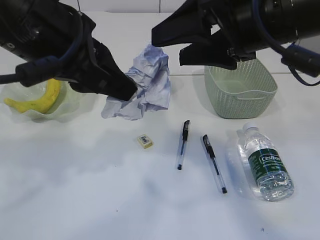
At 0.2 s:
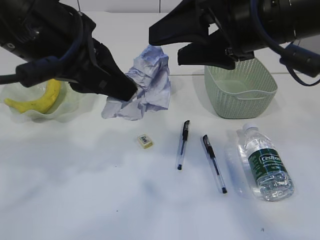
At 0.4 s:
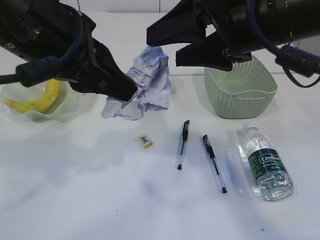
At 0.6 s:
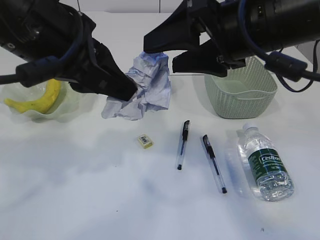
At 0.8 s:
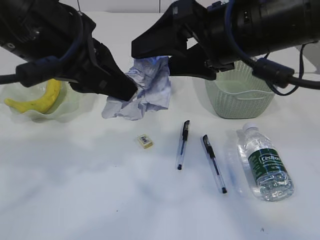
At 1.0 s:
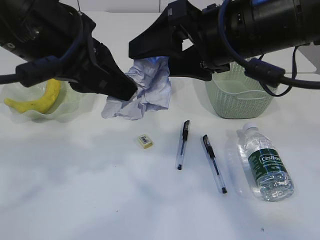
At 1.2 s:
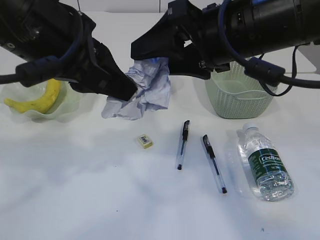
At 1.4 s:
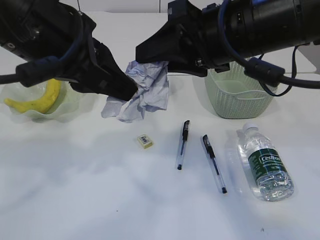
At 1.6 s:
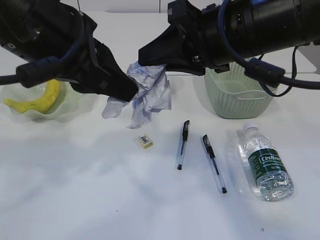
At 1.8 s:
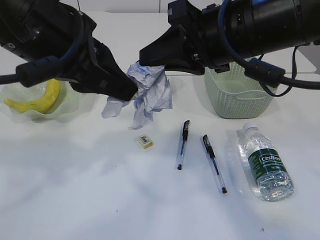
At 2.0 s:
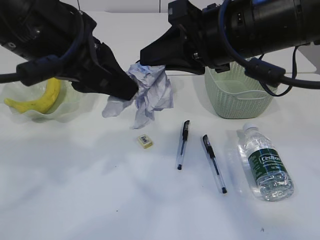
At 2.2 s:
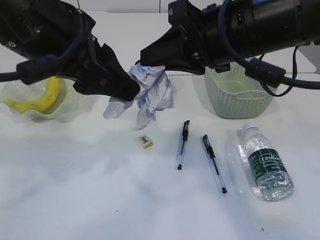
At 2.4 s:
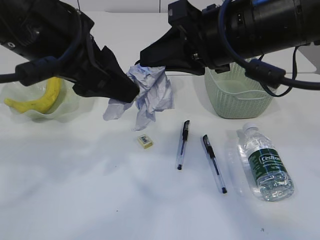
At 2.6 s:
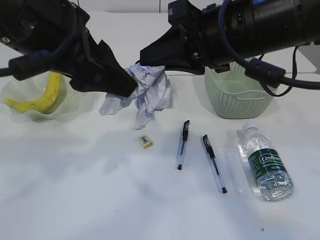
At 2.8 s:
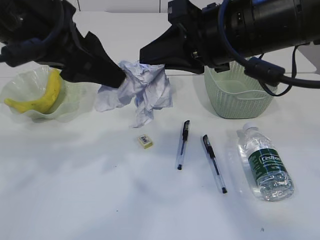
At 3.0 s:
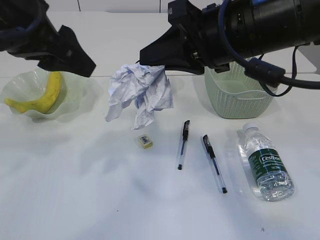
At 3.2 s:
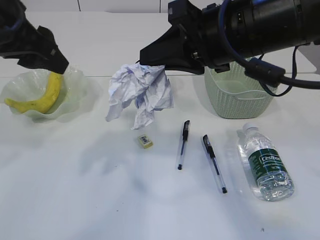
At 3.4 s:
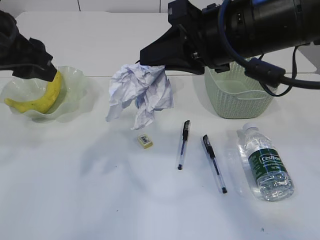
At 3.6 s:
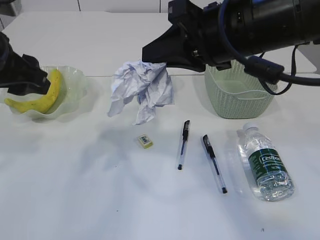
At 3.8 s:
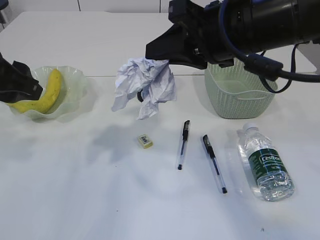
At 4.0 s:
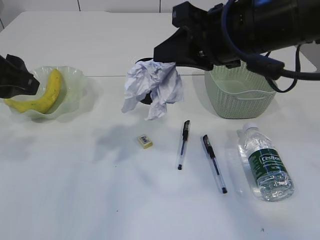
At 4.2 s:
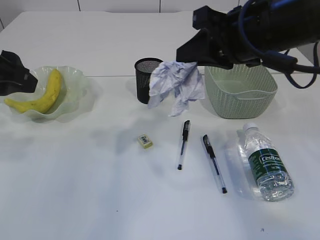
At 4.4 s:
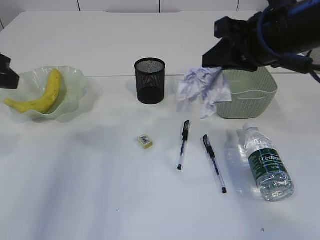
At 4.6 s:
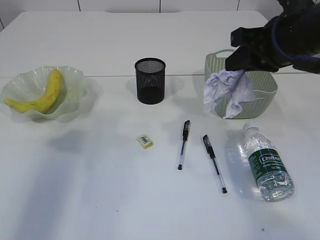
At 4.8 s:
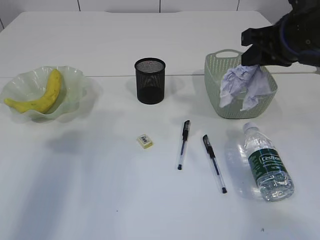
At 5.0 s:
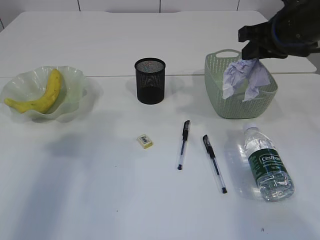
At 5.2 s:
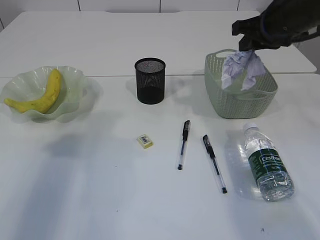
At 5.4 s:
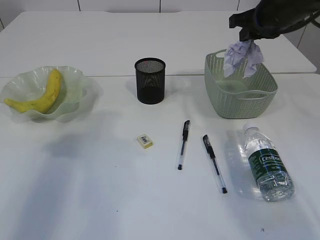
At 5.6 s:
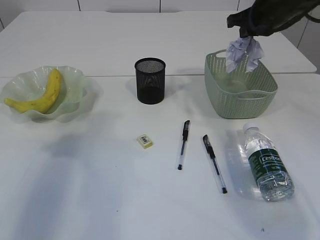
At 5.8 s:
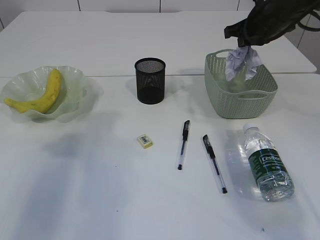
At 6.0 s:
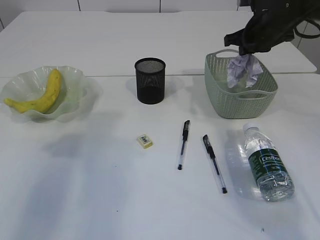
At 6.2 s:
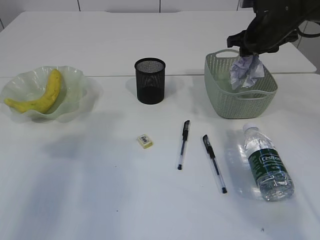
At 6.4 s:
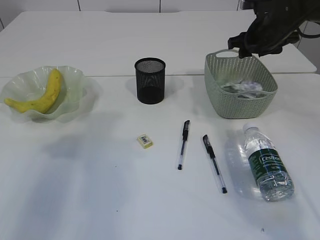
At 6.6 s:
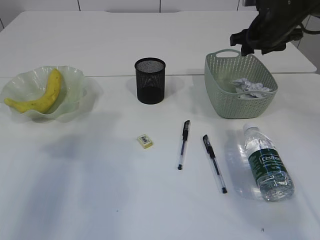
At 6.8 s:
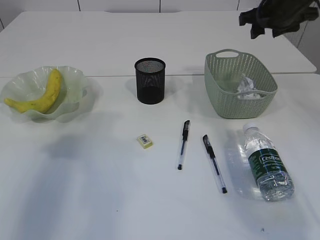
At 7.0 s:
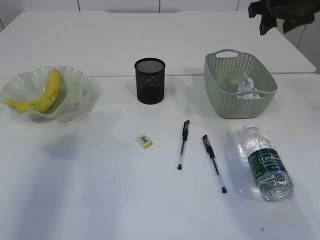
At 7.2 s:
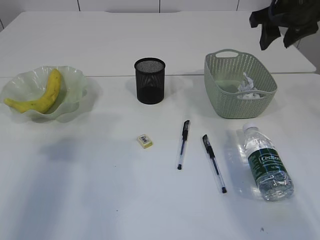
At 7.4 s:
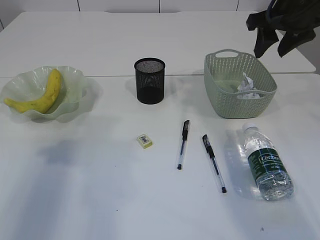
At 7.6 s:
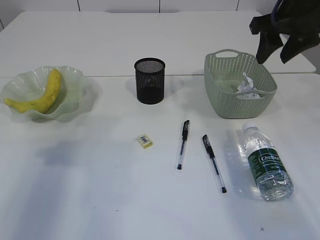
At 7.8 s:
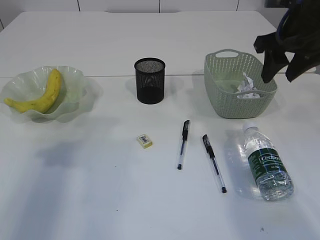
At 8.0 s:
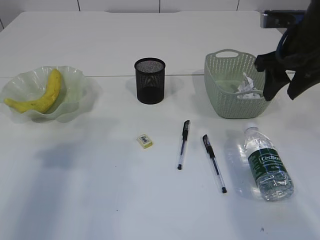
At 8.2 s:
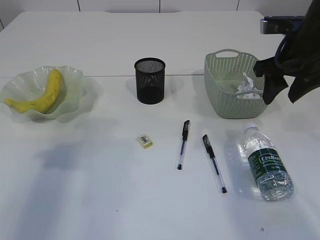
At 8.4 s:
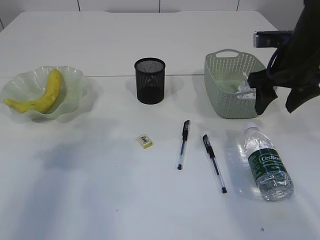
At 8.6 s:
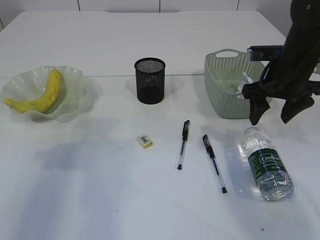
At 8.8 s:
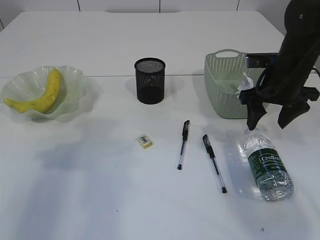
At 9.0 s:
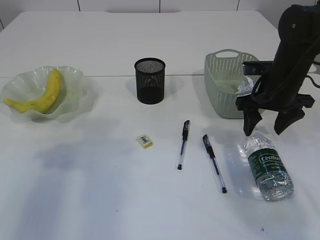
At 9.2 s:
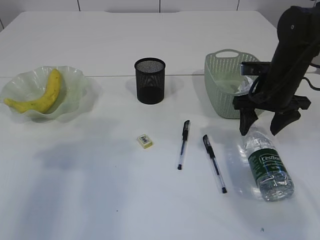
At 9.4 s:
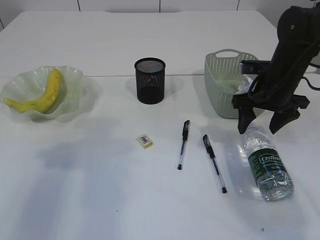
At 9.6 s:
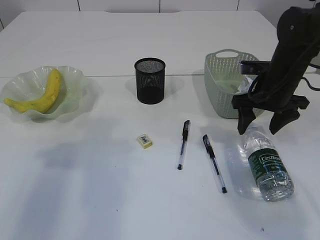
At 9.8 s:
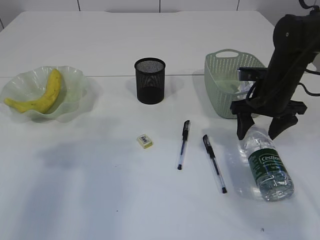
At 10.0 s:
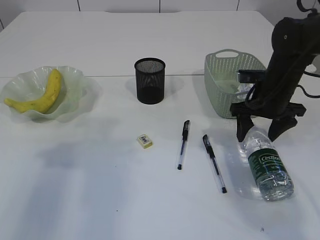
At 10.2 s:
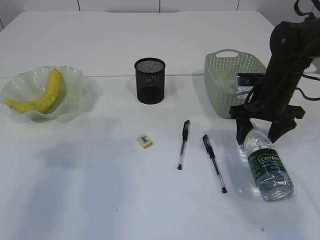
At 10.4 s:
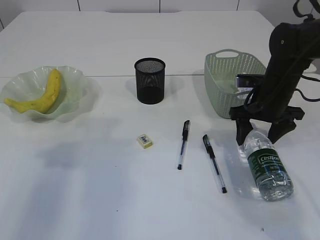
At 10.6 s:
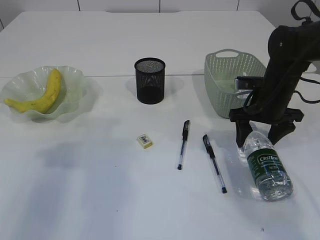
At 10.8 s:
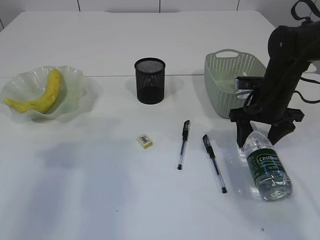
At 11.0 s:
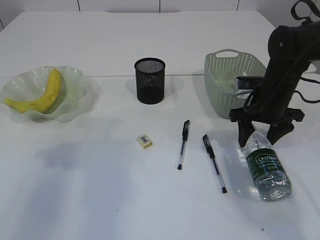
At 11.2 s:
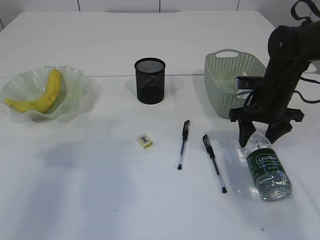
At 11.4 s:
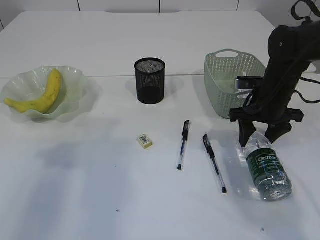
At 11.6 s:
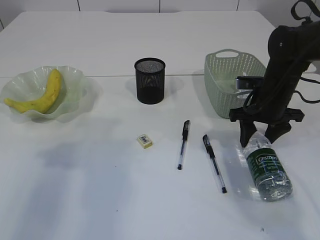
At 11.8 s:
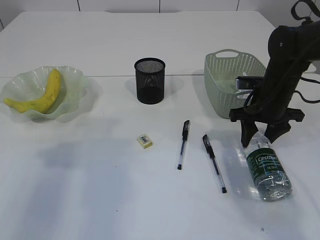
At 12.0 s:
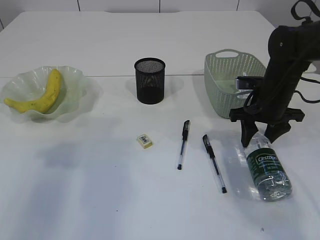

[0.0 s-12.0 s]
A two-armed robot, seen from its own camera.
Step, 0.0 to 2.8 s: Hand over the waste paper.
Step, 3.0 to 6.6 s: Place the waste paper in the basket.
0.0 to 1.6 s: The right gripper closes its fingers.
1.6 to 3.0 s: The left gripper is displaced to the left by about 5 cm, and opens its fingers.
3.0 to 4.4 s: The left gripper travels to the left by about 10 cm, while the right gripper travels to the right by about 5 cm.
4.4 to 6.0 s: The right gripper is displaced forward by roughly 15 cm.
6.0 to 7.6 s: The right gripper goes some 10 cm backward and upward, and opens its fingers.
7.6 to 9.0 s: The right gripper moves downward, roughly 15 cm.
9.0 to 10.4 s: The grippers move only a little.
10.4 to 12.0 s: The right gripper closes up.

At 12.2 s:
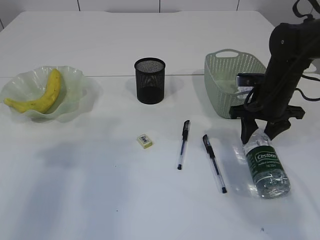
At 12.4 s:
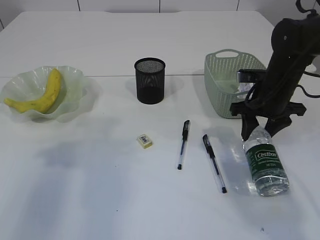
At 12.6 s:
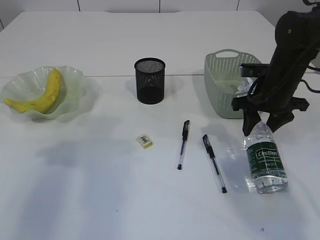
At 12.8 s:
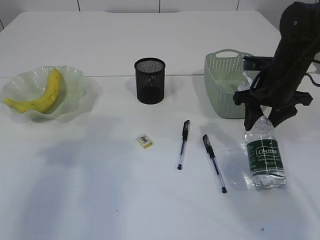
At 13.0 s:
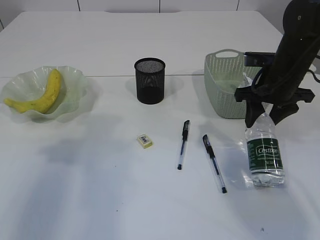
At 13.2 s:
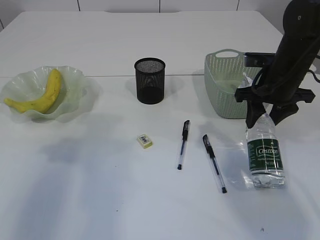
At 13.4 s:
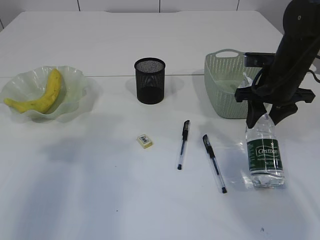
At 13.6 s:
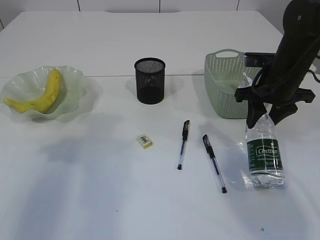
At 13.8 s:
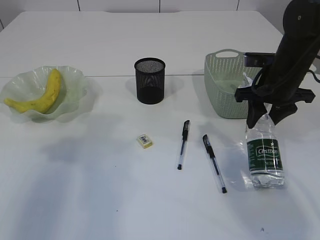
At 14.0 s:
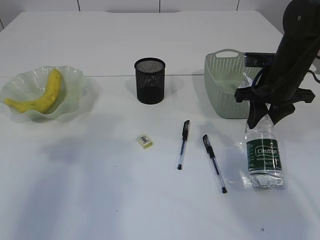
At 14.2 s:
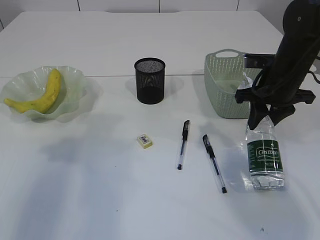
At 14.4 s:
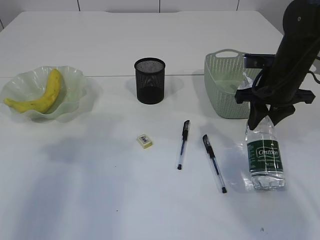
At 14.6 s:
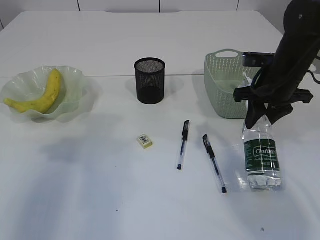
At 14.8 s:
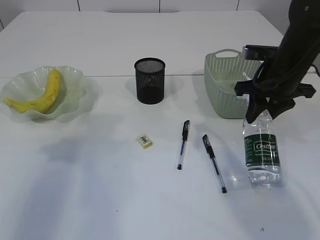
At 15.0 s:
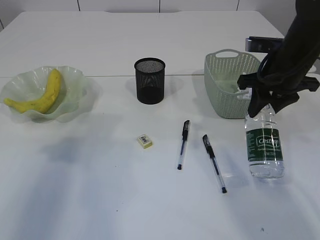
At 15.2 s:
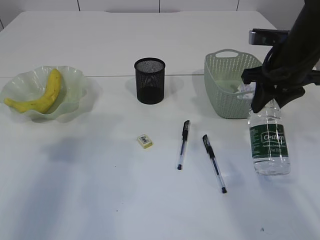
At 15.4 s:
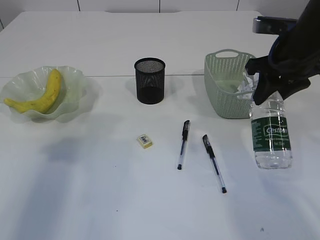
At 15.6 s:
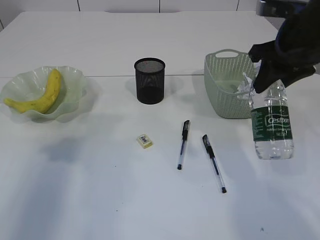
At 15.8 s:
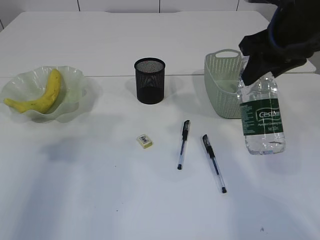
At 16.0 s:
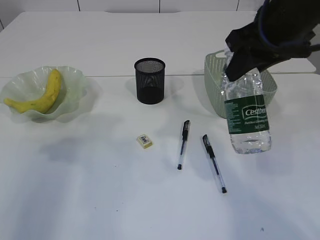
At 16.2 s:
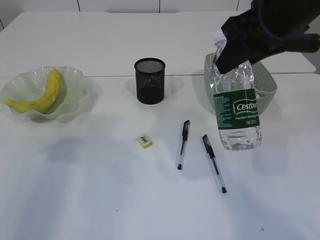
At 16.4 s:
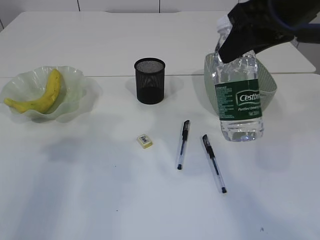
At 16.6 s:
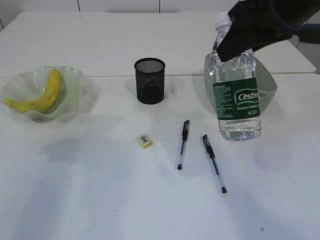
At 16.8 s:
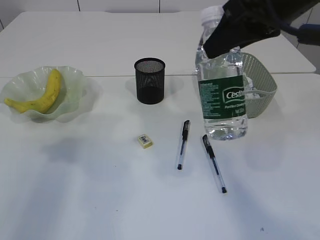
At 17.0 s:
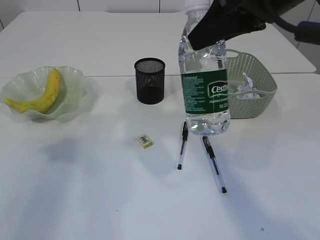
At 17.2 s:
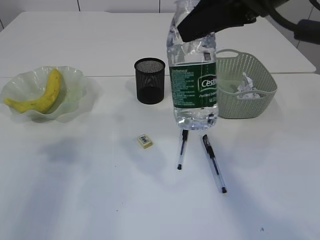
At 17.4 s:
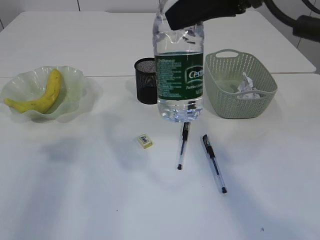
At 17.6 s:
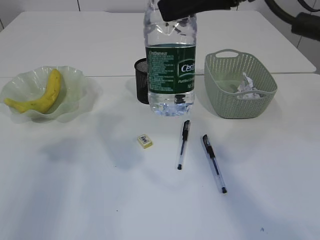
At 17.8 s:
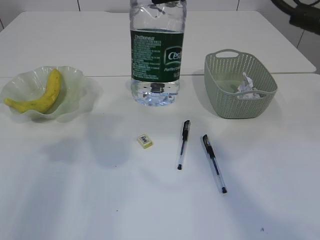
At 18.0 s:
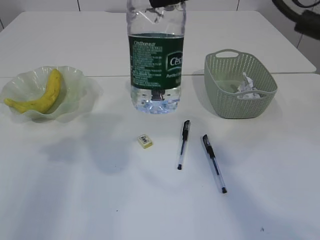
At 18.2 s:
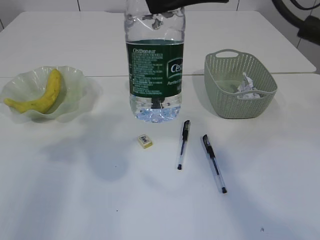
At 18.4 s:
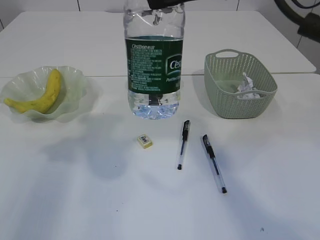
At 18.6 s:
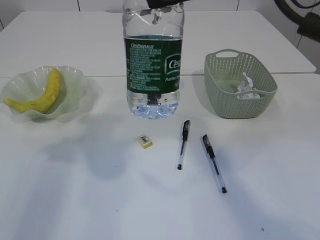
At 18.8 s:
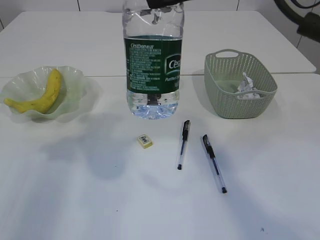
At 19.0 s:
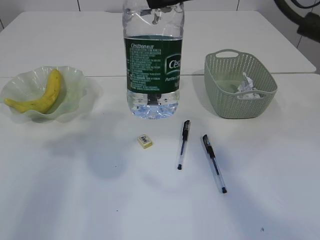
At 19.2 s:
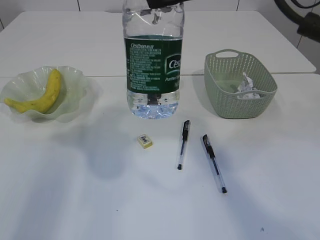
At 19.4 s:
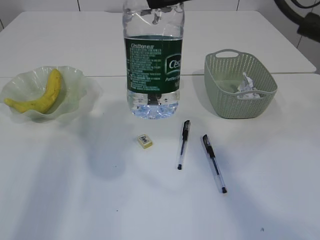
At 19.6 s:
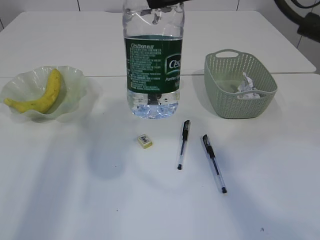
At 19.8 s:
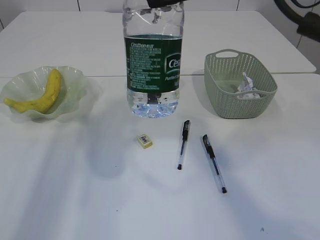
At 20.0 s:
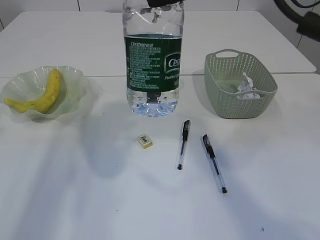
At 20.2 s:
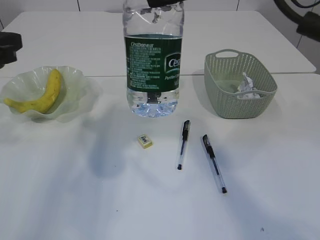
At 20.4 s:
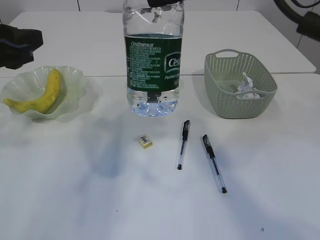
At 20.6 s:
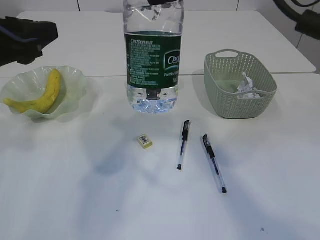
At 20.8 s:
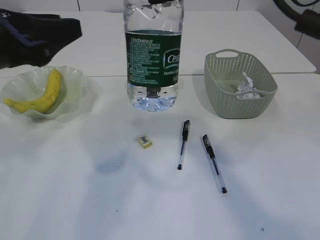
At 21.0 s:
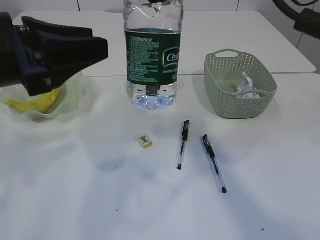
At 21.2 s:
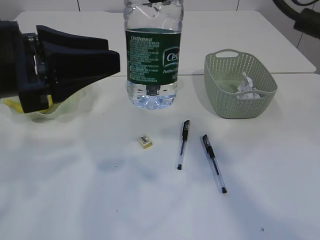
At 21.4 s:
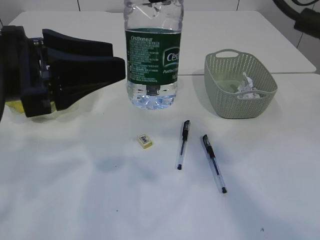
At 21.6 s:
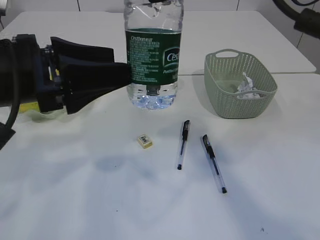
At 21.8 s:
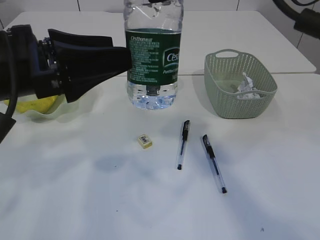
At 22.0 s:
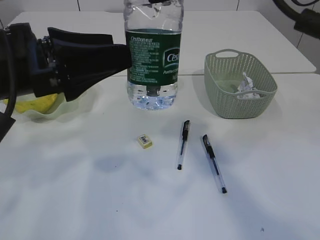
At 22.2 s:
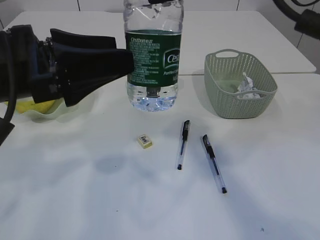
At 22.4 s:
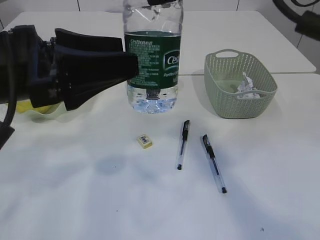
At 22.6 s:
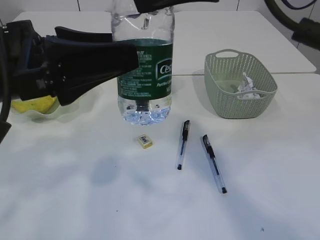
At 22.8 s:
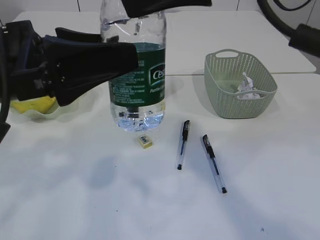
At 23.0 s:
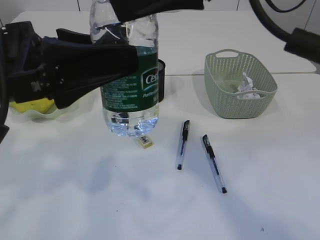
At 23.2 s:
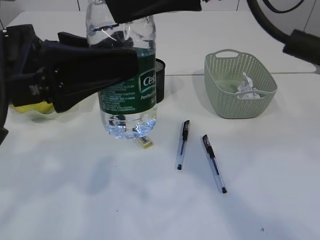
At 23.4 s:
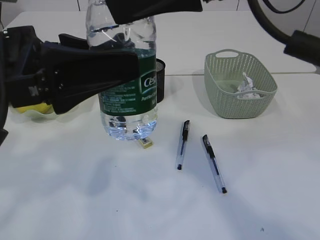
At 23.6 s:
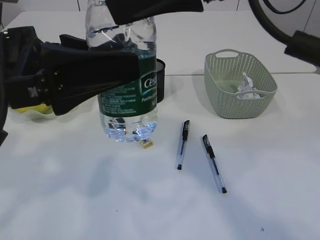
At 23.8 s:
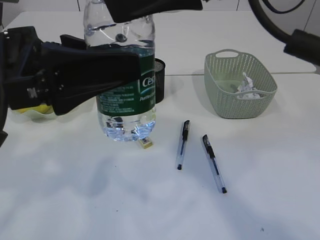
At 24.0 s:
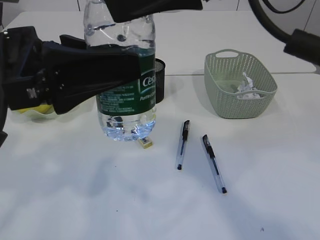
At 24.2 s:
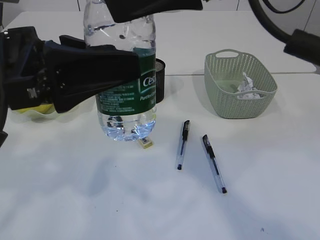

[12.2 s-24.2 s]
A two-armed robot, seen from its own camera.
Step, 12.2 to 14.8 s: Pick up the bottle with the right arm.
12.2 to 13.8 s: The grippers move only a little.
13.8 to 15.2 s: The right gripper goes about 5 cm upward.
15.2 to 16.6 s: The right gripper heads upward, backward and to the left, covering approximately 15 cm.
16.6 to 18.2 s: The right gripper moves roughly 5 cm.
19.8 to 21.2 s: The left gripper goes about 15 cm to the right and backward.
21.2 to 22.6 s: The left gripper opens up.
22.6 to 24.2 s: The grippers make only small movements.
